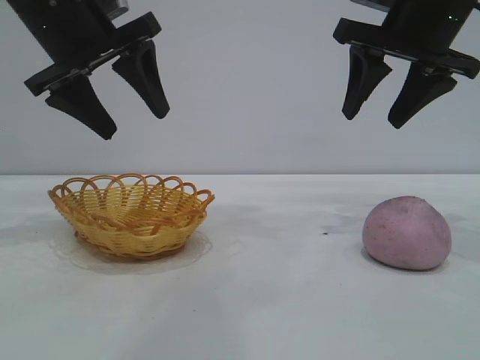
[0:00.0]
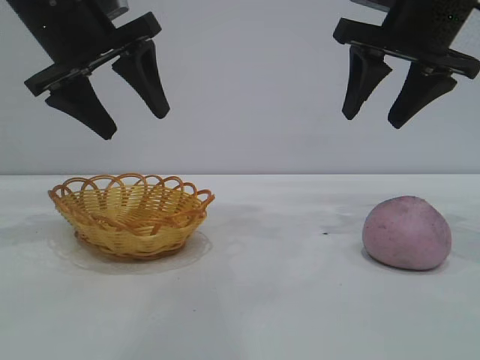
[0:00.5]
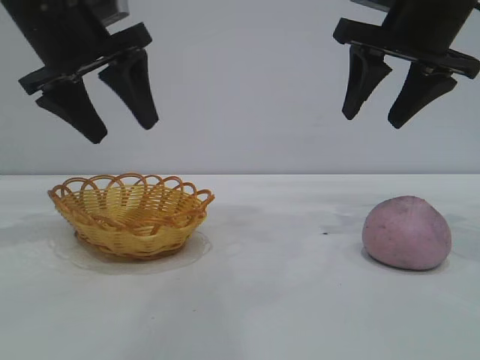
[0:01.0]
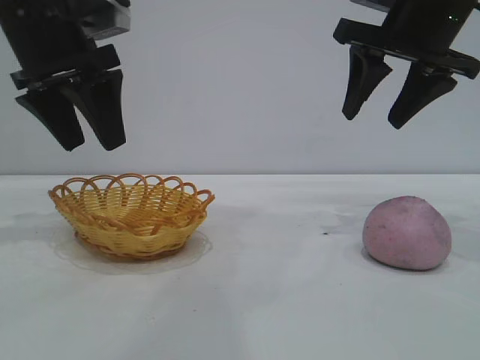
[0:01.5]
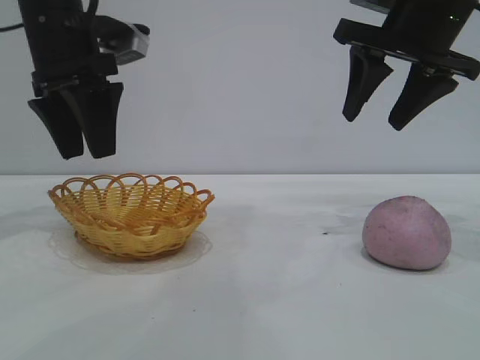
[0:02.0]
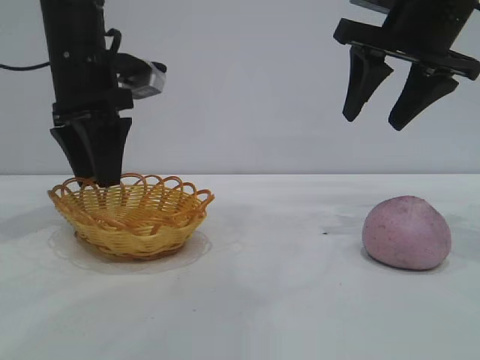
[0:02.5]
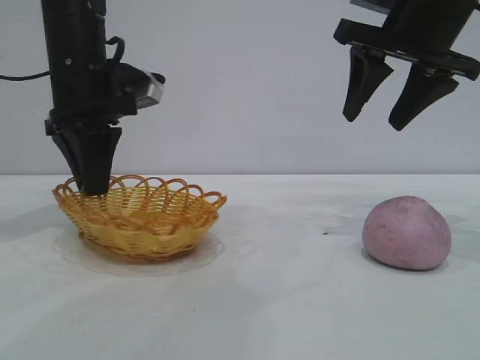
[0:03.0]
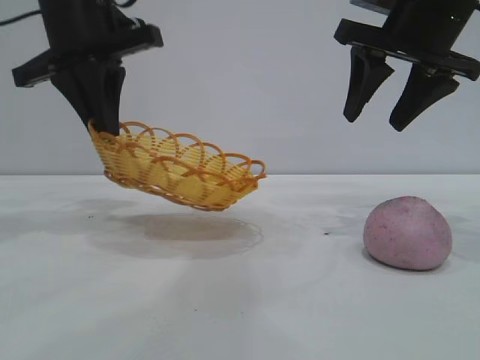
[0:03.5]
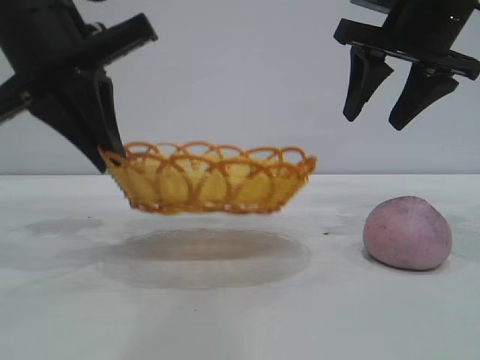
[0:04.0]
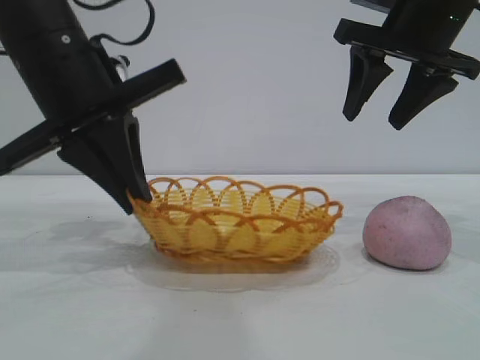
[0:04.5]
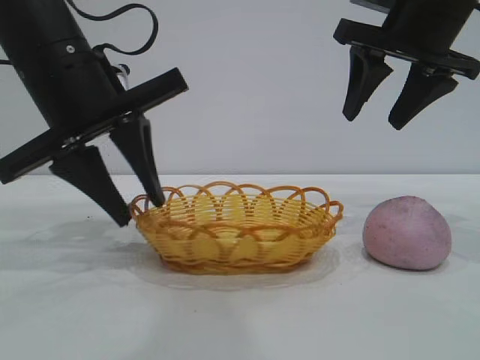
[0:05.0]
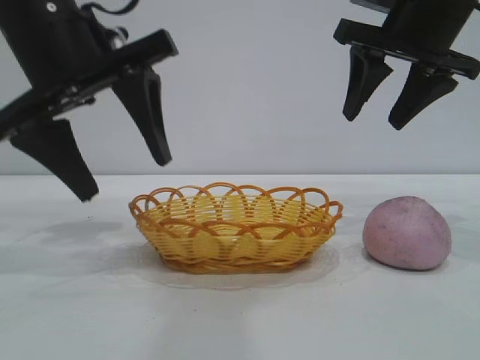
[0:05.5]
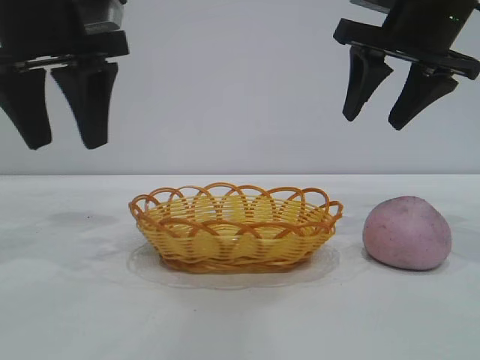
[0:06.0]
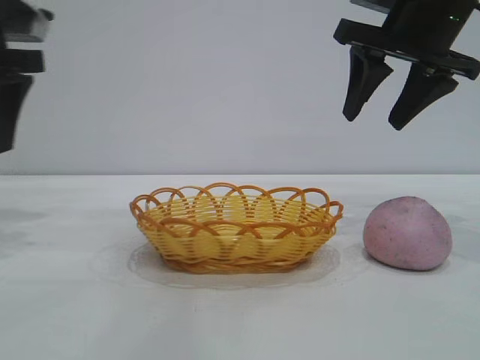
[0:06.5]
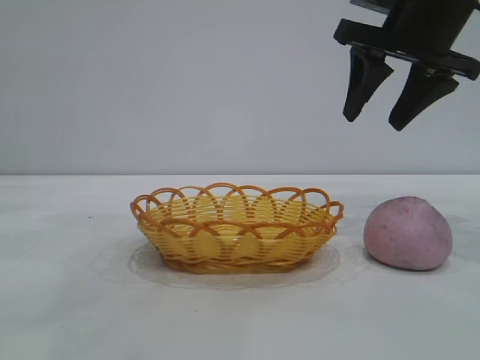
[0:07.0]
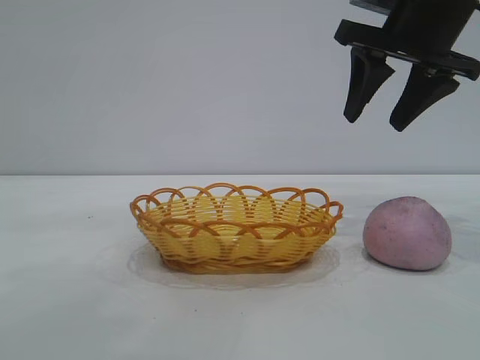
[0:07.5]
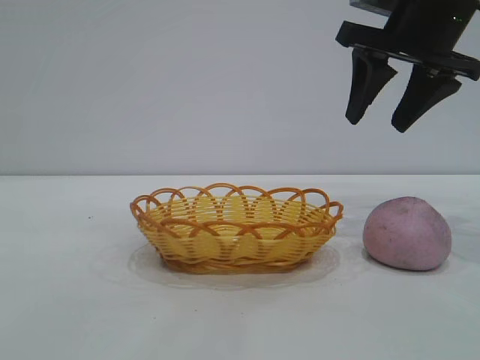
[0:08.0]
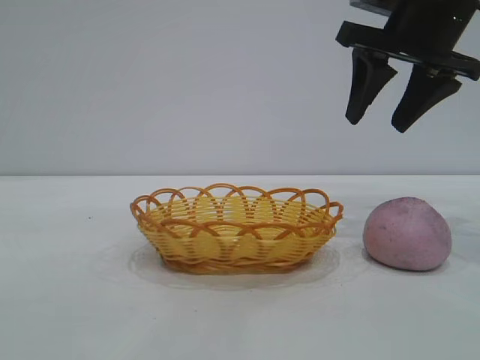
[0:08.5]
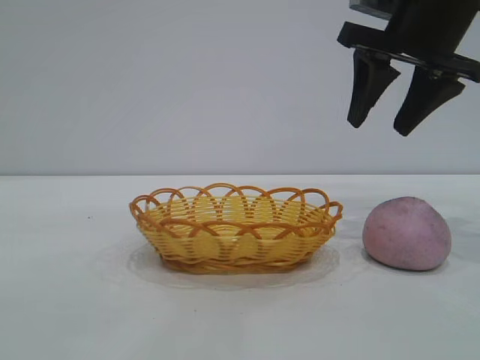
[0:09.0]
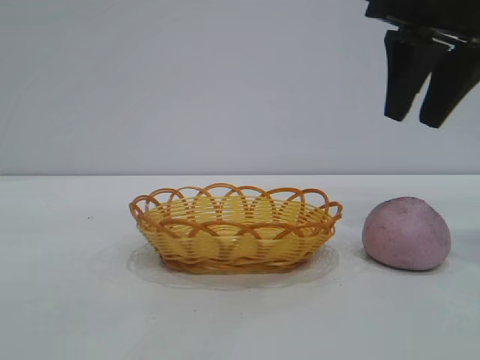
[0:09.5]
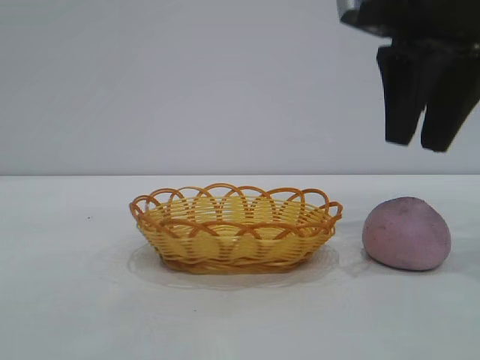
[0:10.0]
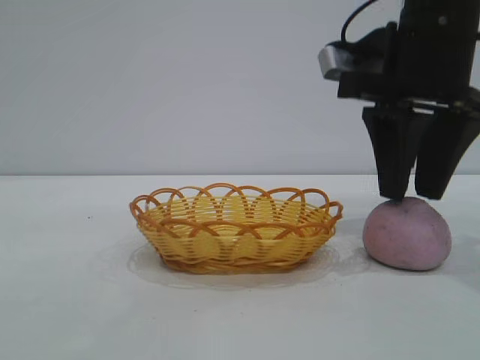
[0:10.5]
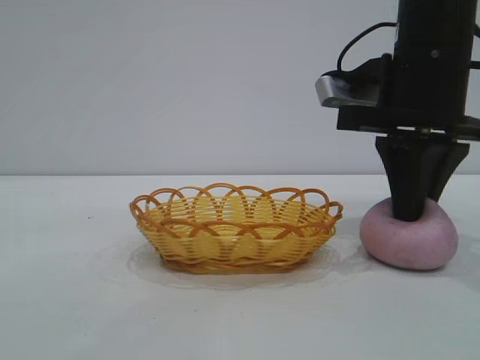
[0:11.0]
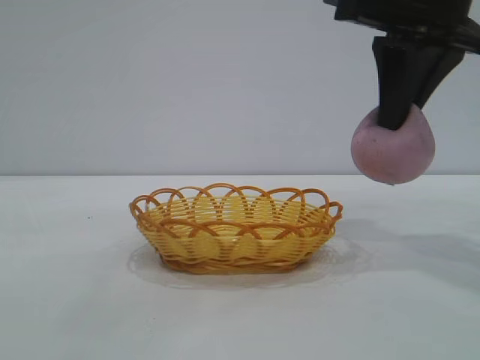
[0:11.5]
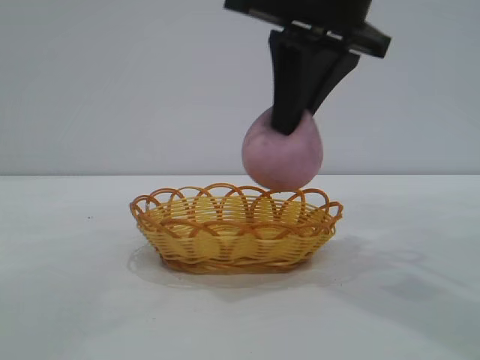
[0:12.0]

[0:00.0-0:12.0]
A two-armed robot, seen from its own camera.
Task of the whole recording: pick up the peach and put it into the basket.
Step, 0:00.0 to 0:05.5: Move the basket to the center of view.
Step, 0:06.0 to 0:11.0: Pick up the peach.

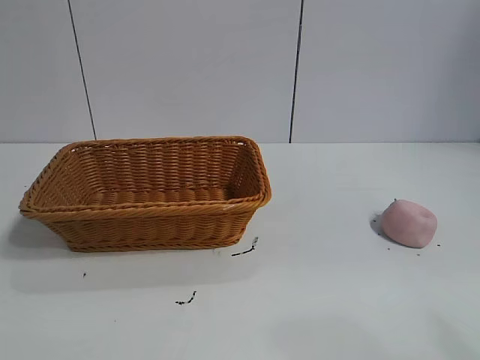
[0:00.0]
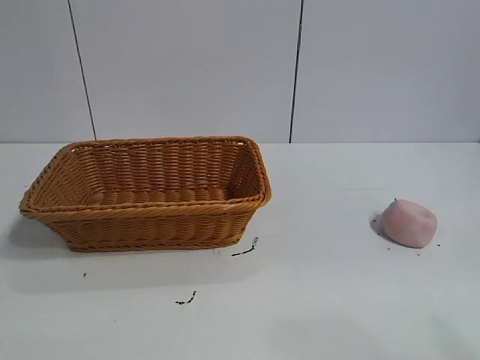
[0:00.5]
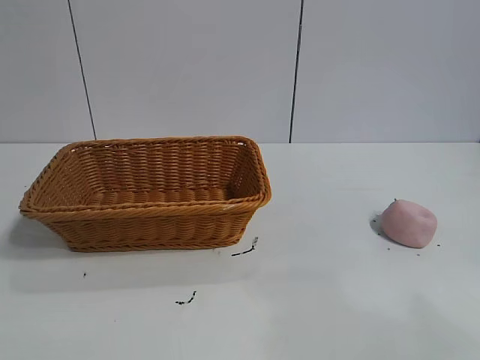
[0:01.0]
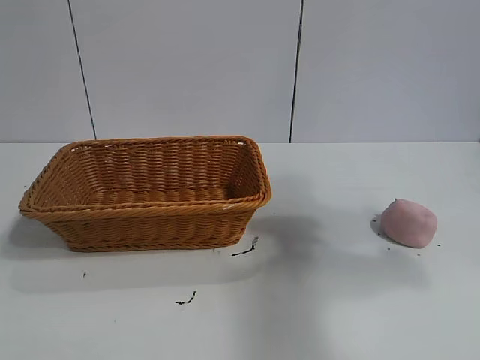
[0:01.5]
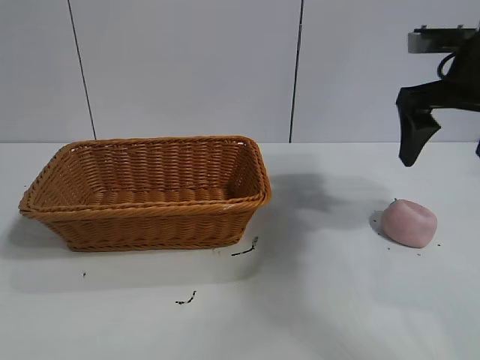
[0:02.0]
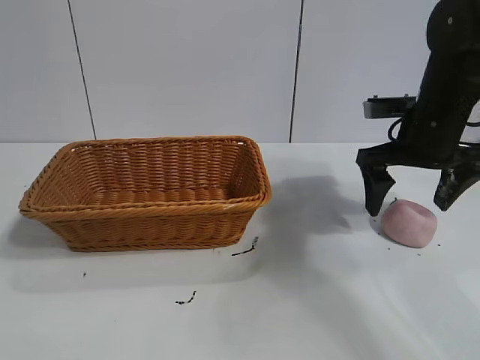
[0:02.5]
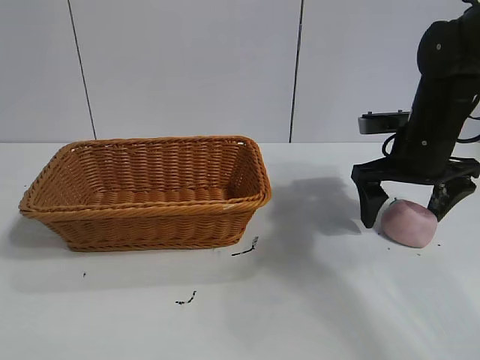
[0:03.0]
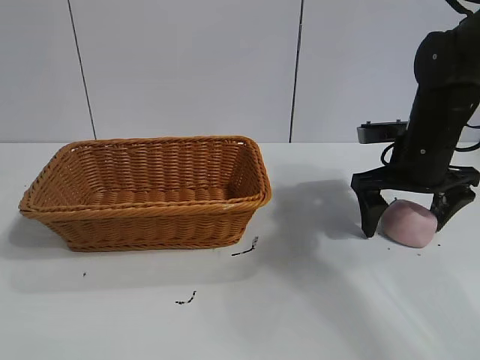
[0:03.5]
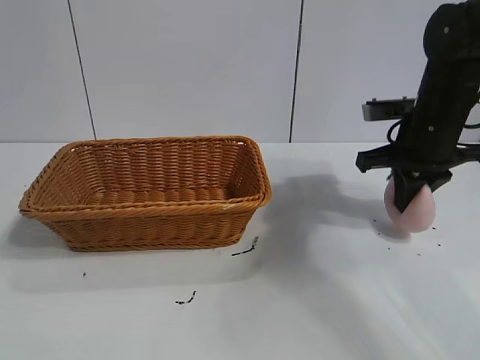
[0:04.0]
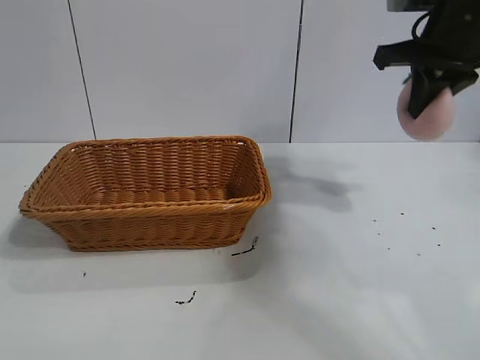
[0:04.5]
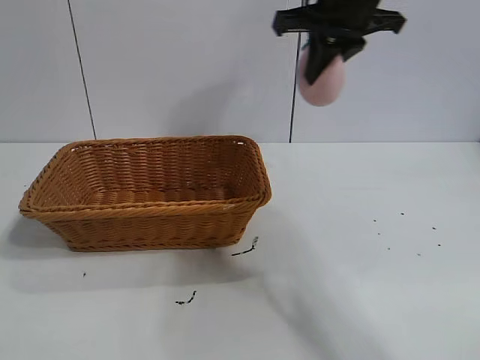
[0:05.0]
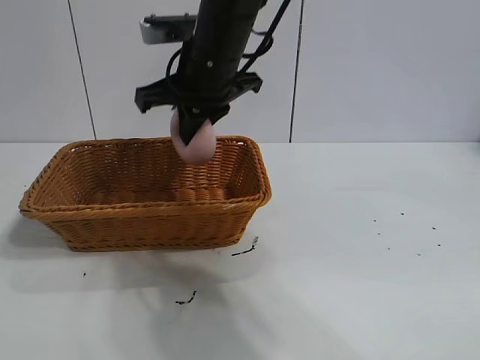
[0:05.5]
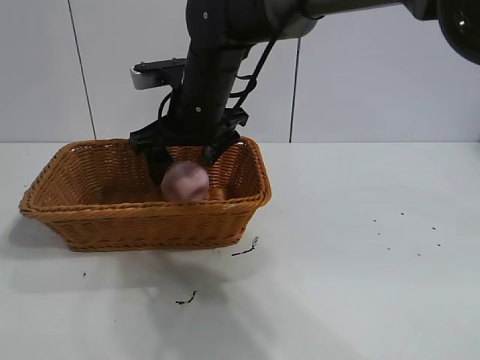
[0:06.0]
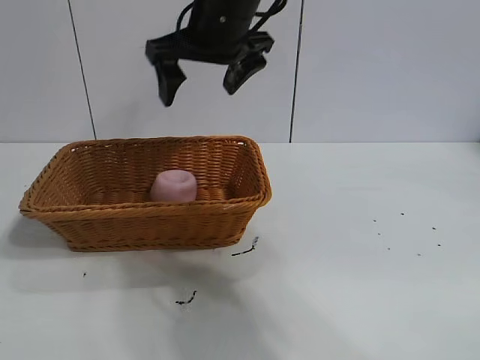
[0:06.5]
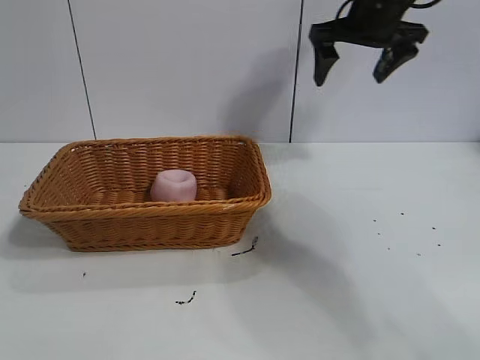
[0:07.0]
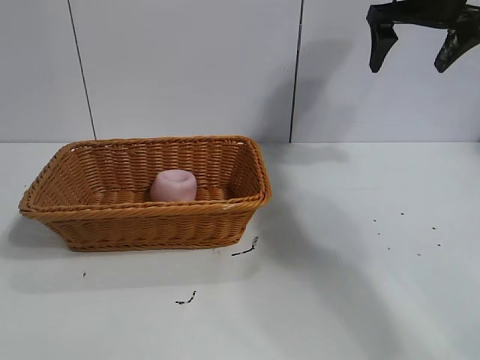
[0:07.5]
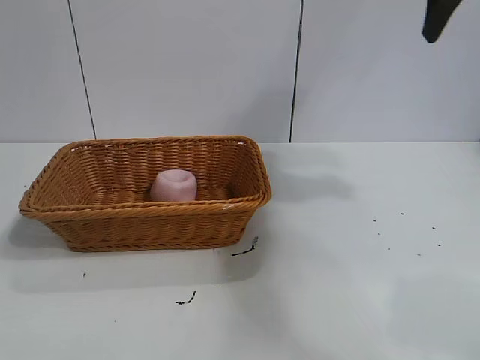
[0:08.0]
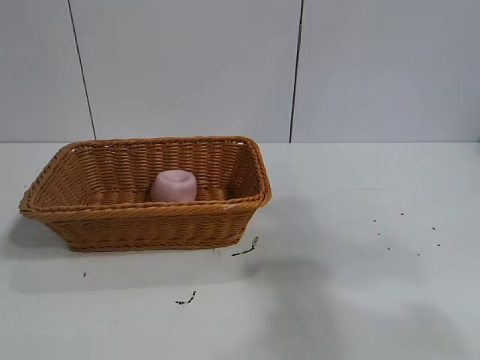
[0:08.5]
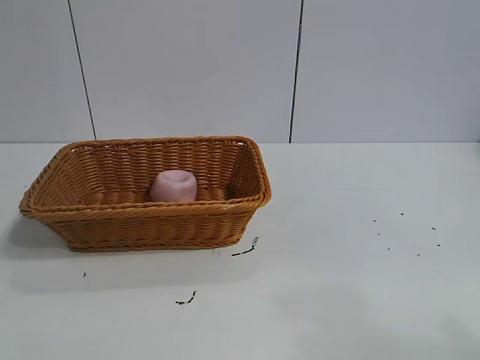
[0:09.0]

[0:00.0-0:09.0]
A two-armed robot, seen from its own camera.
Task of the whole recording: pick up the peach and put it into the basket.
Step, 0:01.0 to 0:03.5: Grasp the peach with right gripper.
Step, 0:04.0 to 0:06.0: Place the peach in the basket with right gripper.
